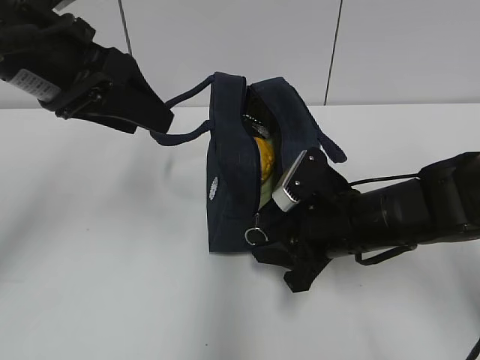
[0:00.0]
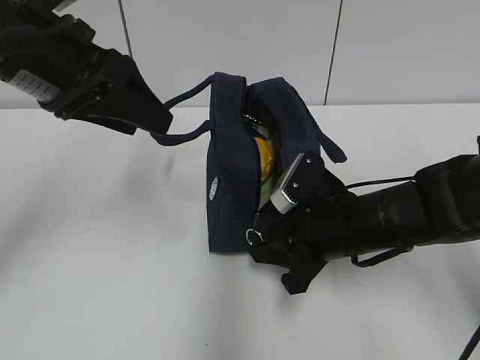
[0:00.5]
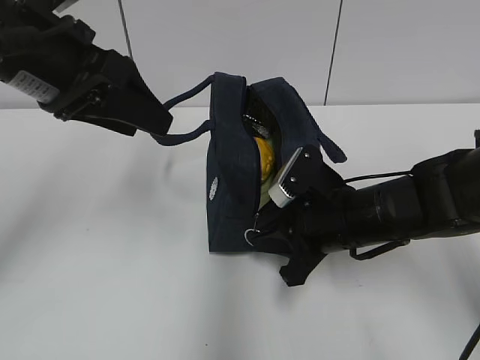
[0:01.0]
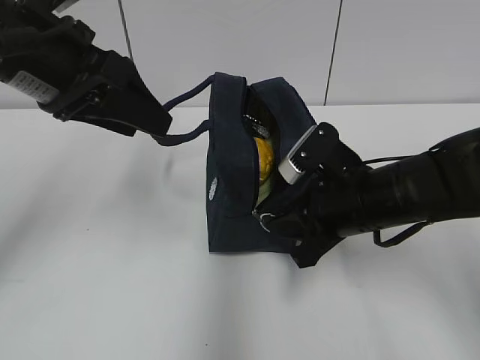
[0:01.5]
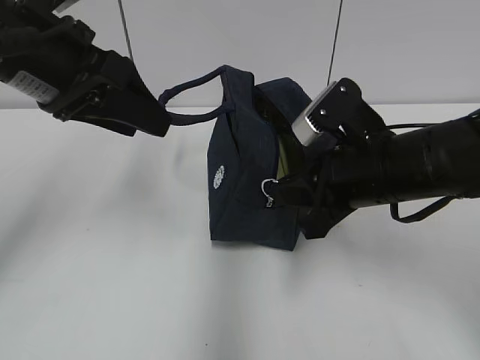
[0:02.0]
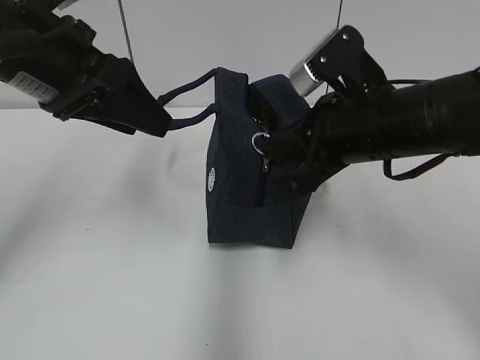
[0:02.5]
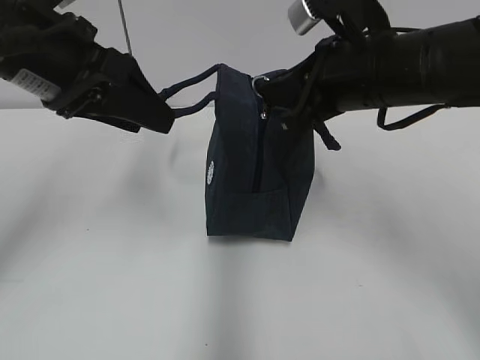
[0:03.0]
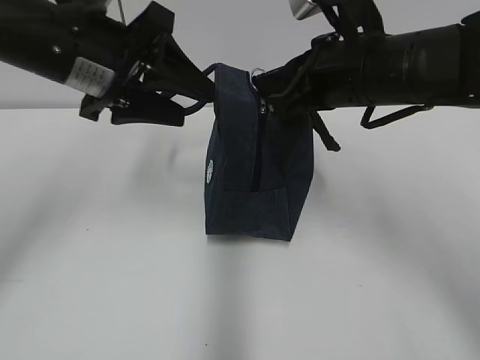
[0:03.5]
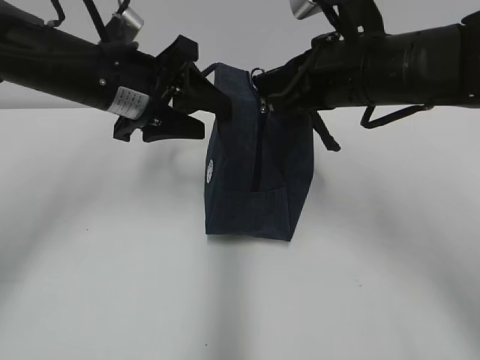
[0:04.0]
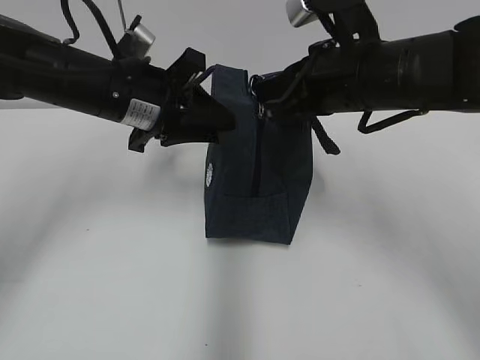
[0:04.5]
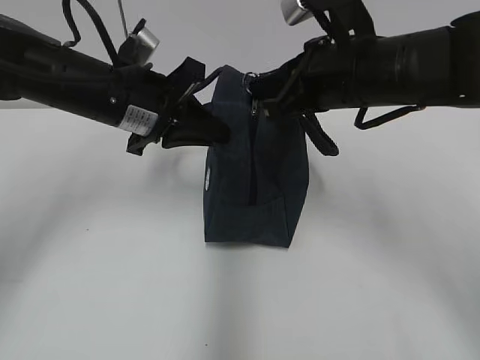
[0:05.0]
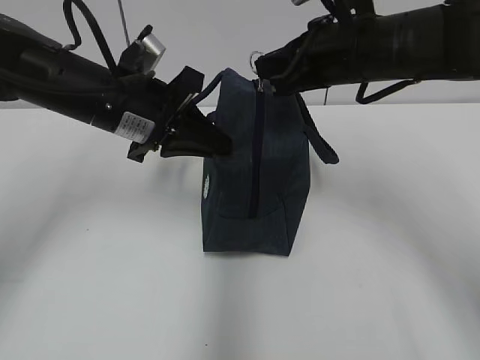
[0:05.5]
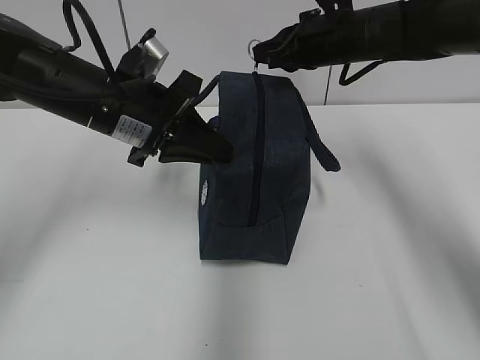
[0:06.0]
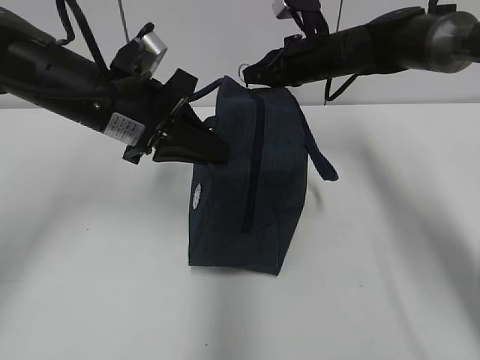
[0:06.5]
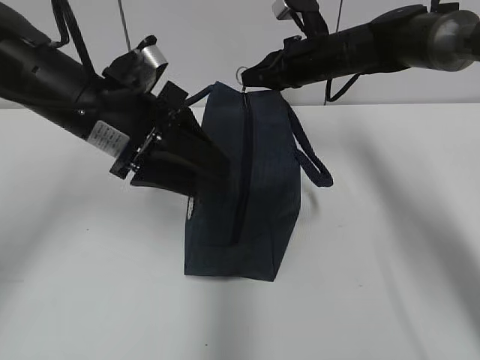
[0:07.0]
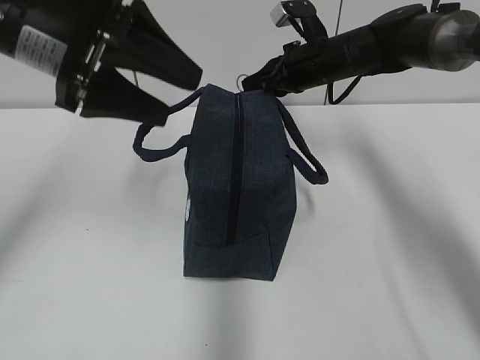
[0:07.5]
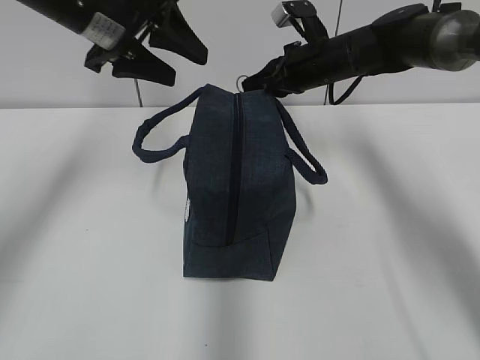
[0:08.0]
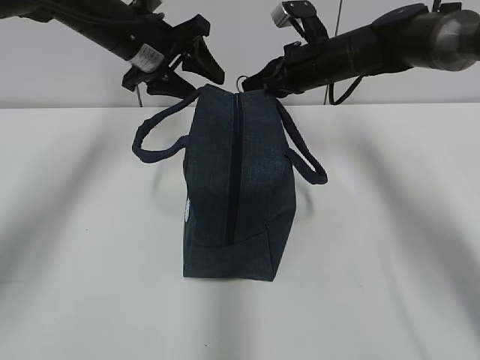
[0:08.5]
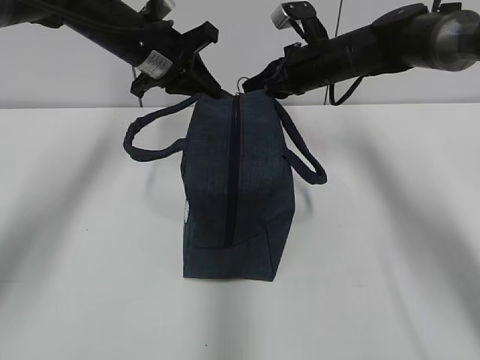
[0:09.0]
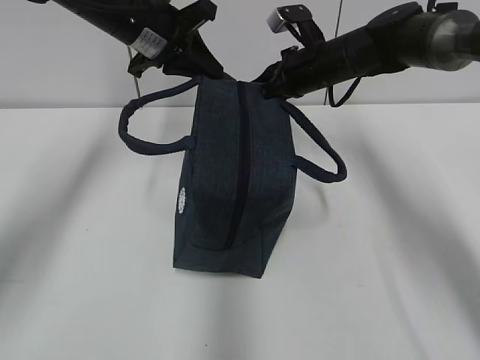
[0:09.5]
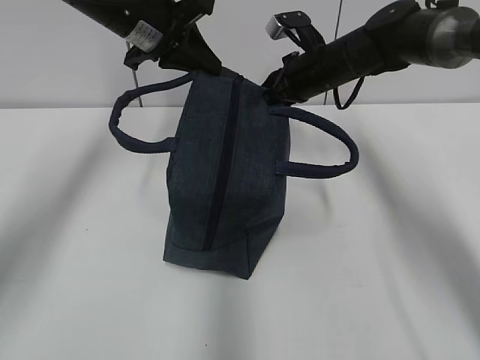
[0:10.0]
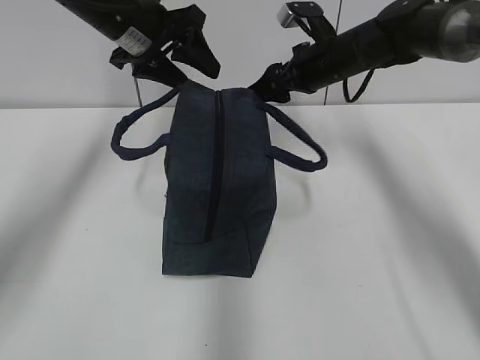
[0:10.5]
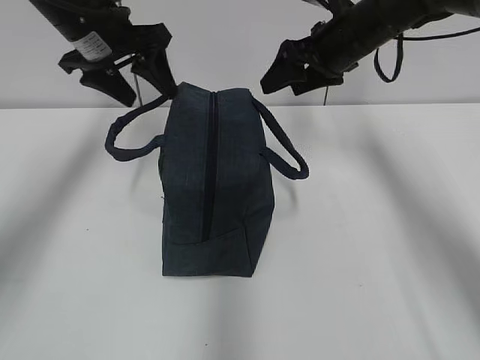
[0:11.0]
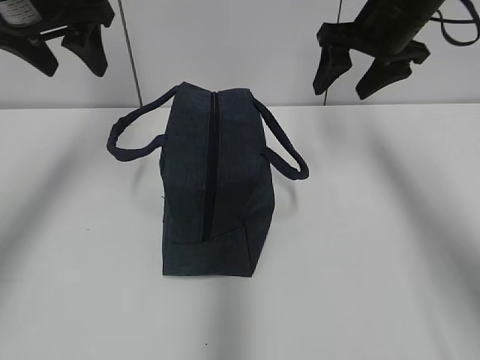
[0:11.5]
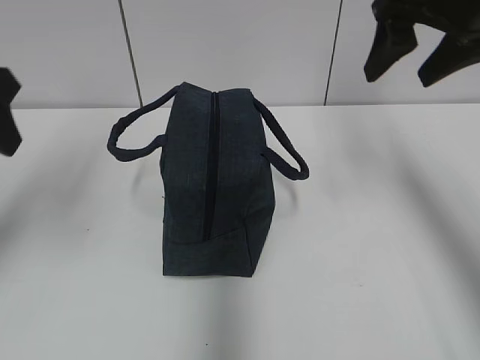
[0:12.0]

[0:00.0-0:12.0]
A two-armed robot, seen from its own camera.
0:00.0 to 0:02.0: The right gripper moves upward, some 10 cm, and closes its fingers.
0:02.0 to 0:04.0: The left gripper goes about 10 cm downward and forward; the right gripper travels upward and forward by about 10 cm.
0:04.0 to 0:06.0: The left gripper closes. Meanwhile the right gripper moves forward, some 15 cm.
0:06.0 to 0:08.0: The left gripper goes about 10 cm upward and forward, and opens up. Meanwhile the right gripper changes place by about 5 cm.
0:08.0 to 0:10.0: The left gripper shifts about 5 cm forward, and closes its fingers.
0:10.0 to 0:12.0: The left gripper travels backward and to the left by some 20 cm, and opens up, while the right gripper goes roughly 25 cm upward, backward and to the right, and opens.

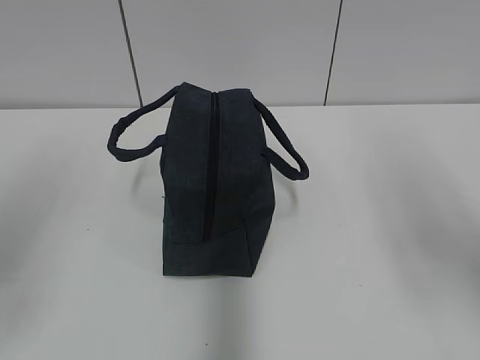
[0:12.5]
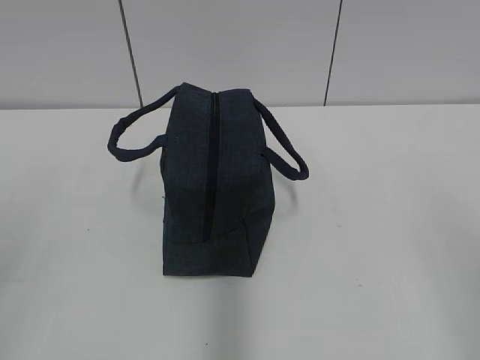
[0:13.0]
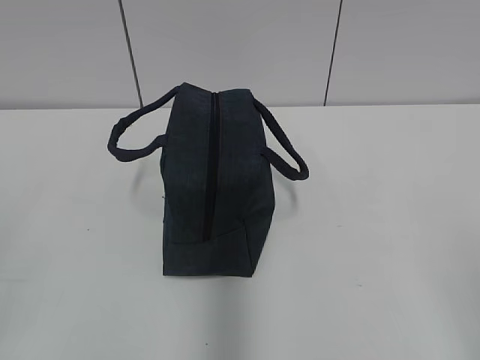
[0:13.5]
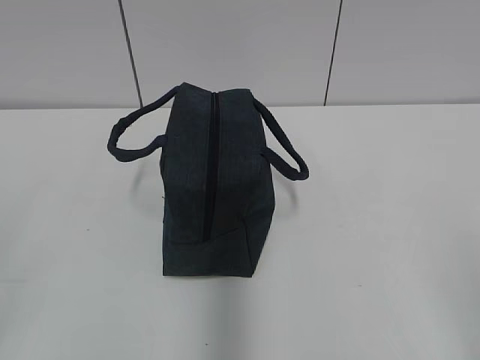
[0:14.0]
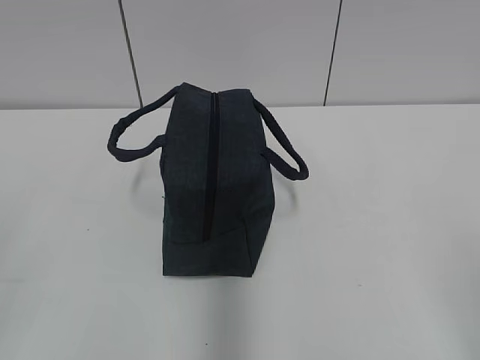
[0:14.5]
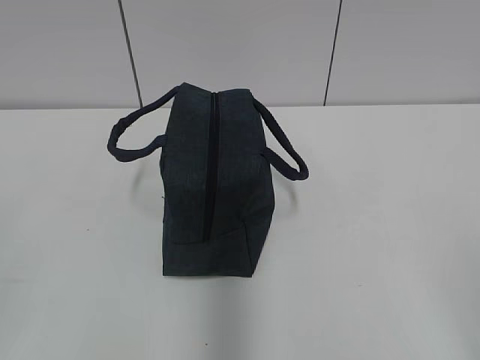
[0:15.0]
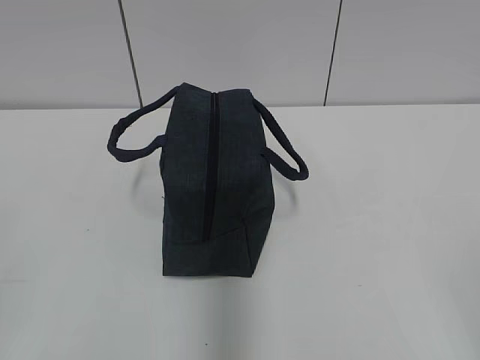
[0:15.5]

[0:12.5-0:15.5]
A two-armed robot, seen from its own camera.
0:12.5 to 0:14.0: The grippers both shift backward and downward by about 15 cm.
